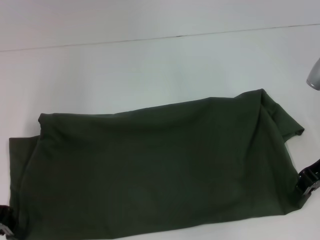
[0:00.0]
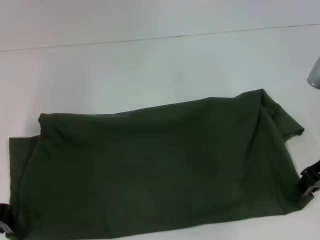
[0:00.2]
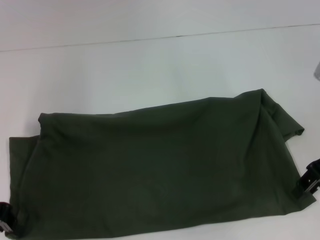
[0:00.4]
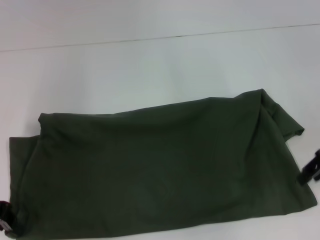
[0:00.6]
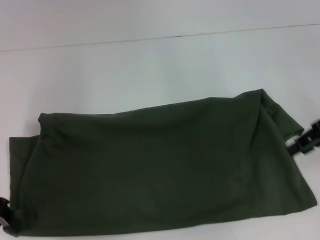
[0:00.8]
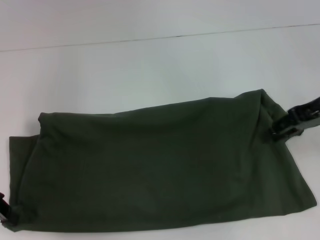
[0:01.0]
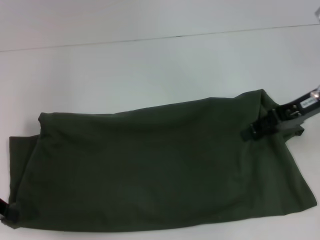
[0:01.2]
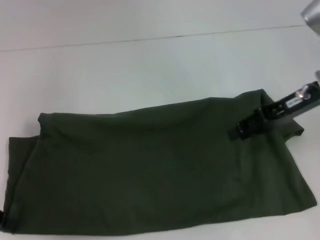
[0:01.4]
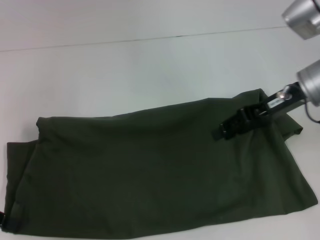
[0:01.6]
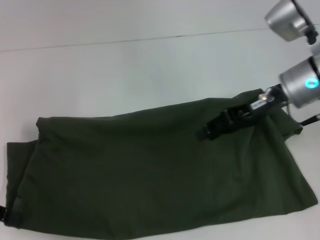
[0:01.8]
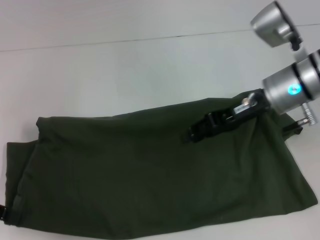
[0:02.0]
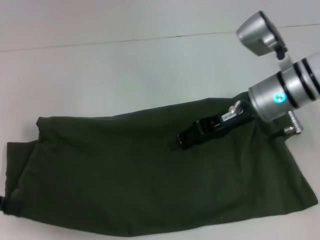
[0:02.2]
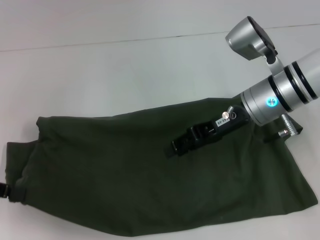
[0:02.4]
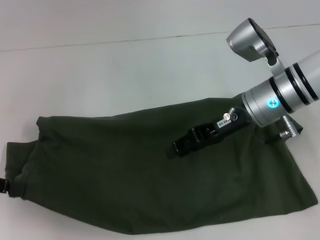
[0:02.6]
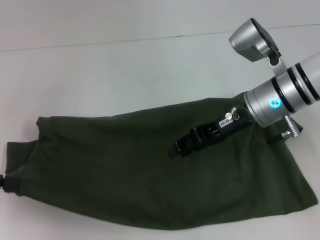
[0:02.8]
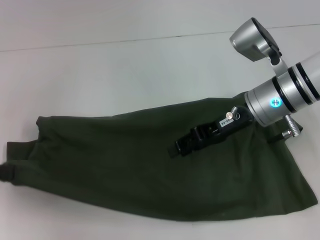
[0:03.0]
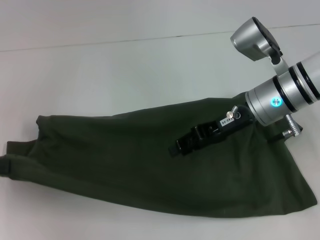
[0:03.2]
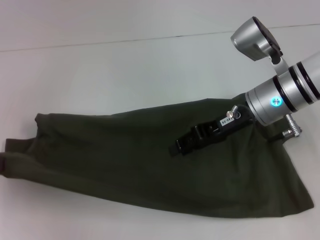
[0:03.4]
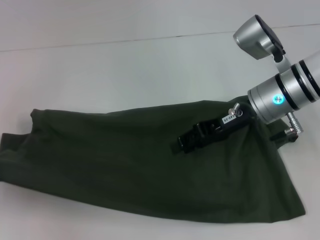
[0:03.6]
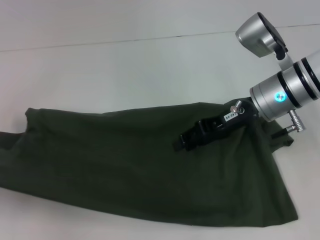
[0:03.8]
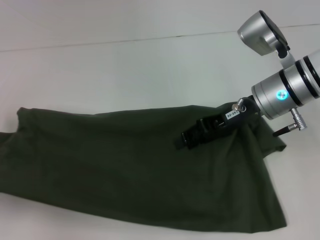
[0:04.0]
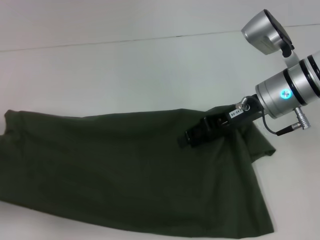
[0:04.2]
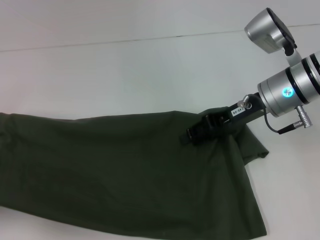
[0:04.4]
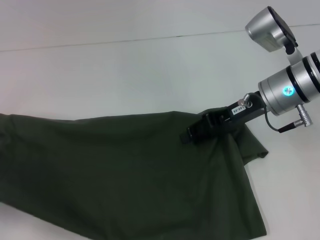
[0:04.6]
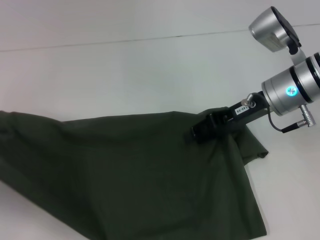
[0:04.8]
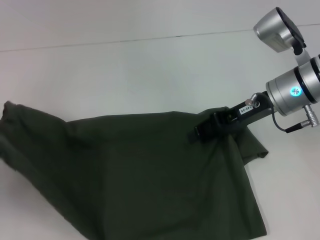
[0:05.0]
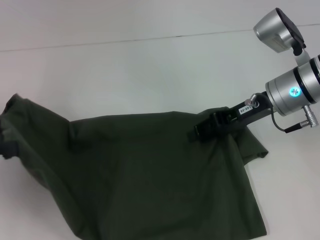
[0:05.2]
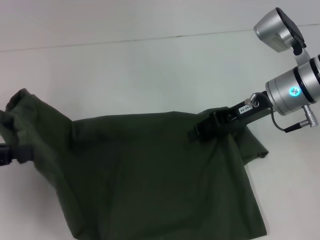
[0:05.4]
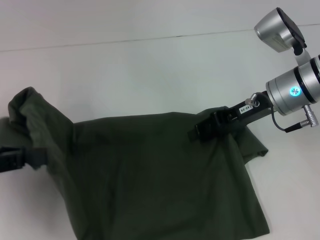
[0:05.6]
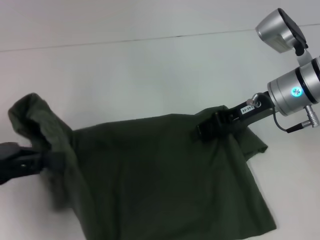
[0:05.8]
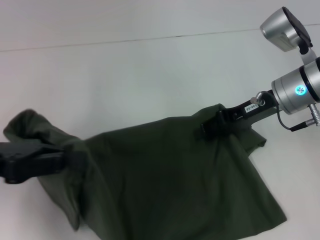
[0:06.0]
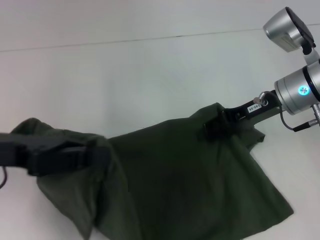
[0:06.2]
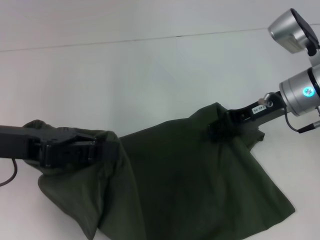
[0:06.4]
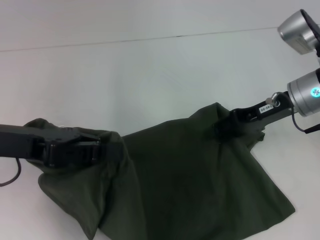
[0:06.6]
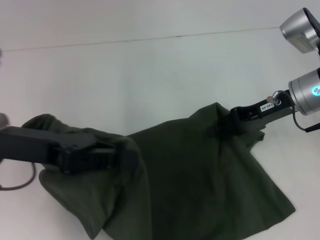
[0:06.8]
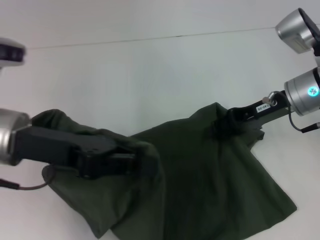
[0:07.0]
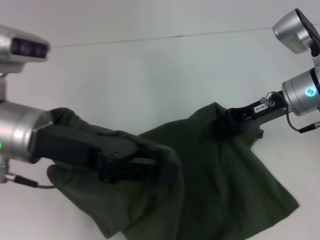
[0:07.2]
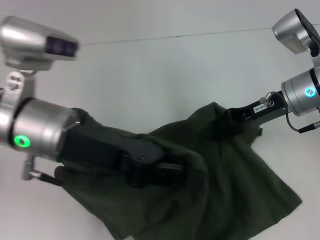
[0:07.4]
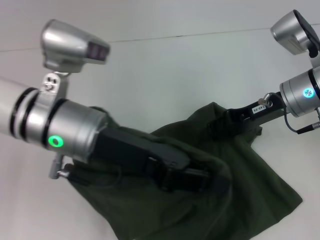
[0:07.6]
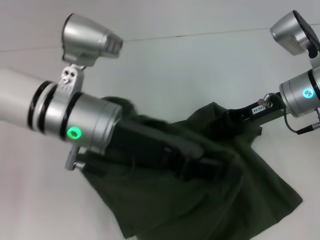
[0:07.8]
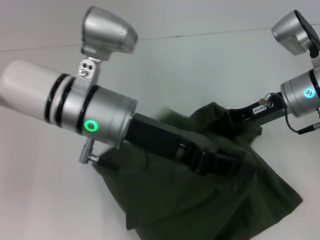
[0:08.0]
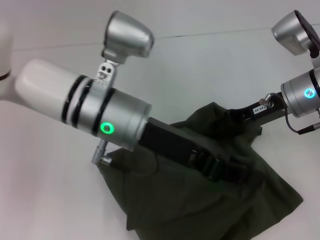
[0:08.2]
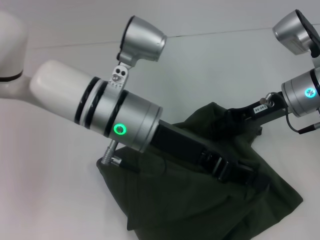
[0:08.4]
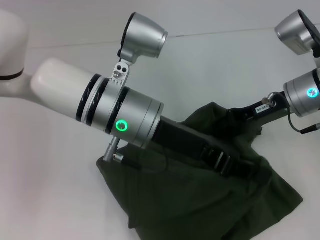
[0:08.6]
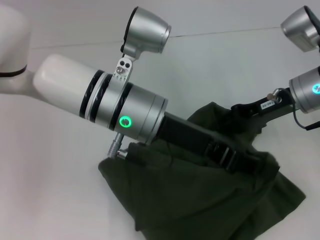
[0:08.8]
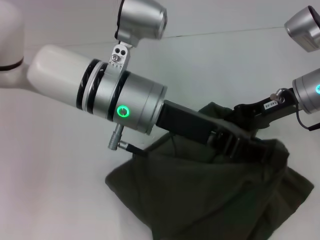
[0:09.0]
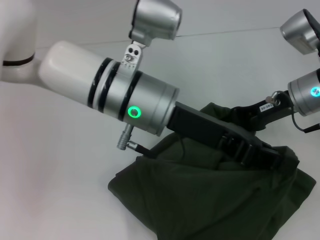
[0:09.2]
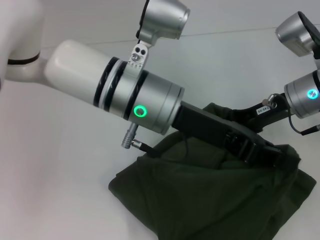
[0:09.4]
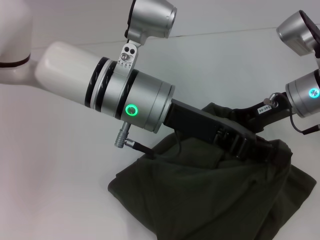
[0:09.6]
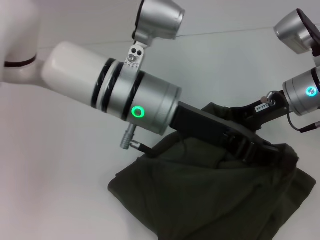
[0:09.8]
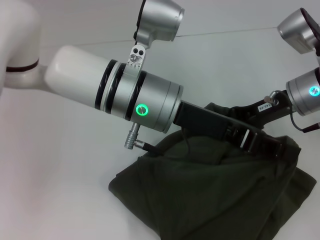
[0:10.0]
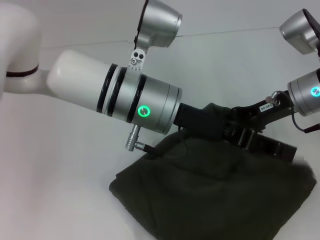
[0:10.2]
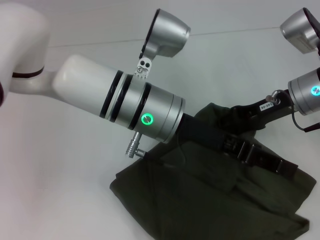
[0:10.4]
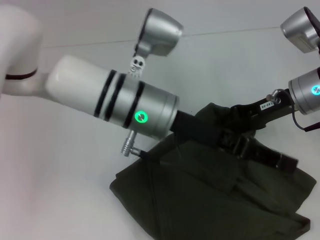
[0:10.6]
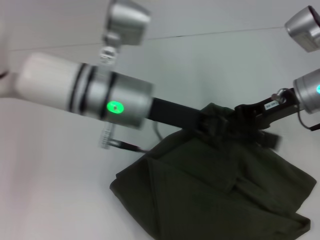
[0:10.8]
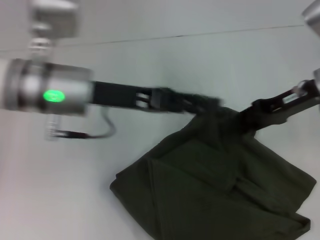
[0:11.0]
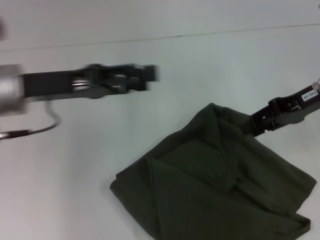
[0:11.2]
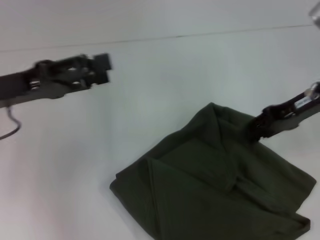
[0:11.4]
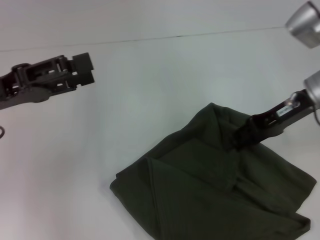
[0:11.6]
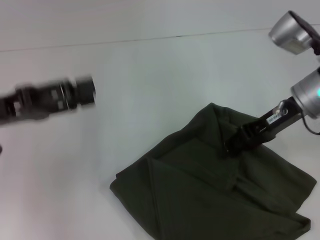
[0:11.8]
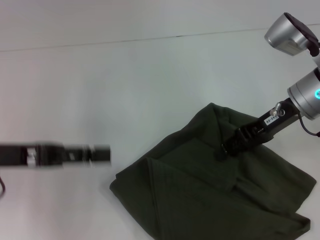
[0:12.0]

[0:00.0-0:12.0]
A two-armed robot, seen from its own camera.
Step, 0:00.0 to 0:11.0: Fold the clothes with your left hand.
0:00.0 to 0:01.6: The right gripper is displaced to the left by roughly 5 cm, and opens.
0:01.6 to 0:03.0: The right gripper travels to the left by roughly 5 cm.
0:03.0 to 0:04.4: The left gripper heads to the left and backward, covering some 10 cm.
0:04.4 to 0:06.0: The left gripper travels to the right and forward by some 15 cm.
0:06.0 to 0:07.6: The left gripper is displaced to the right by about 15 cm.
0:07.6 to 0:09.0: The left gripper heads to the right, covering roughly 5 cm.
0:09.0 to 0:10.4: The grippers stay close to where they were, moving slightly.
0:10.4 to 0:12.0: The left gripper travels to the left by roughly 25 cm, and opens up.

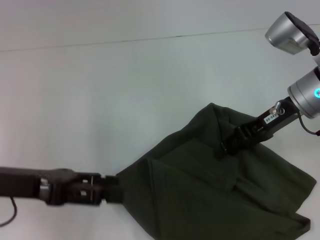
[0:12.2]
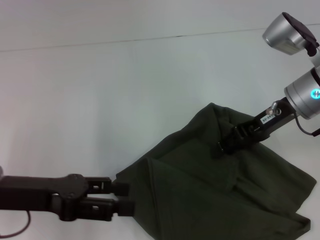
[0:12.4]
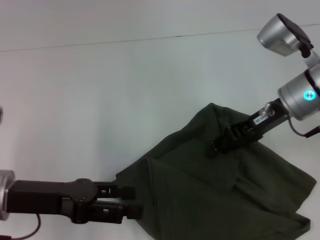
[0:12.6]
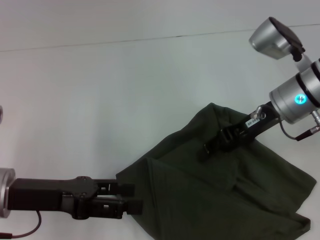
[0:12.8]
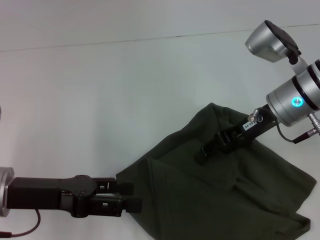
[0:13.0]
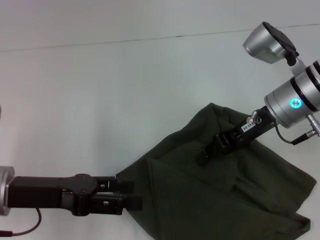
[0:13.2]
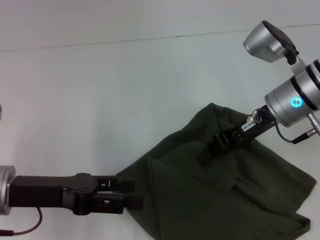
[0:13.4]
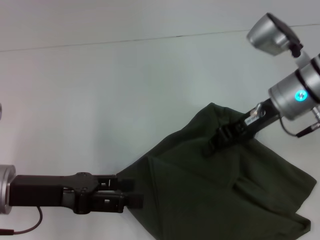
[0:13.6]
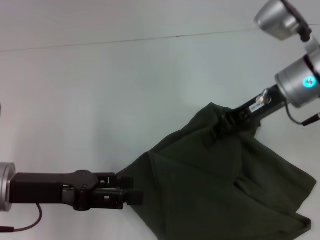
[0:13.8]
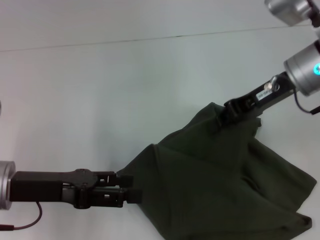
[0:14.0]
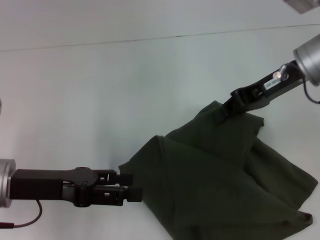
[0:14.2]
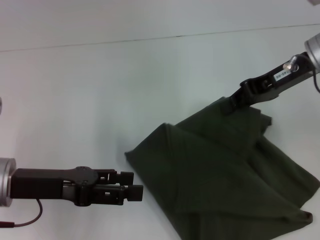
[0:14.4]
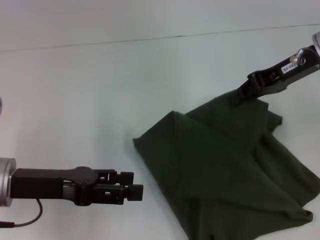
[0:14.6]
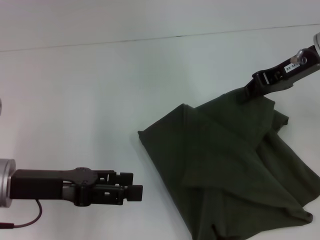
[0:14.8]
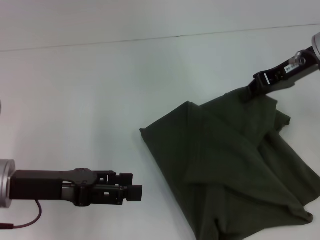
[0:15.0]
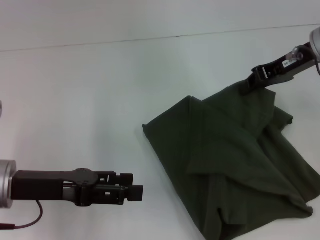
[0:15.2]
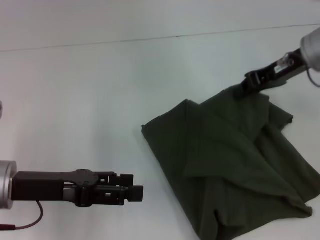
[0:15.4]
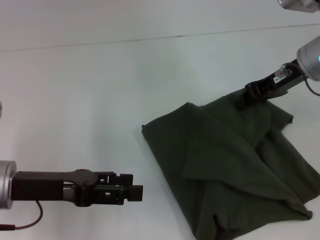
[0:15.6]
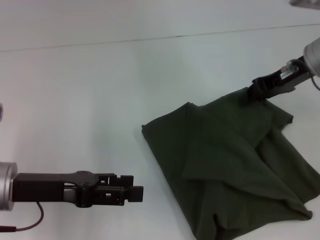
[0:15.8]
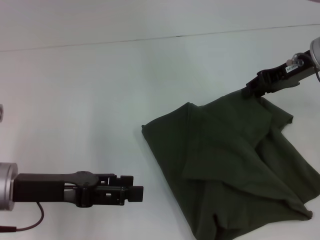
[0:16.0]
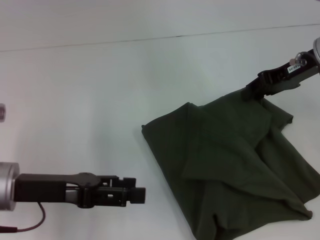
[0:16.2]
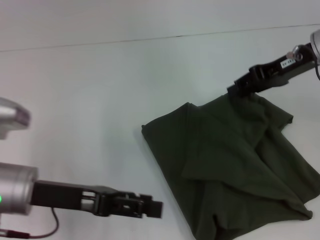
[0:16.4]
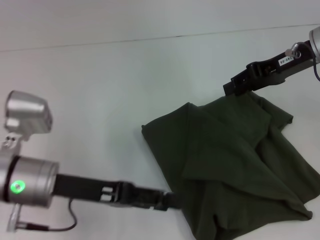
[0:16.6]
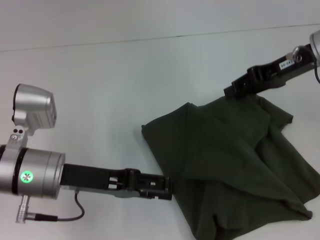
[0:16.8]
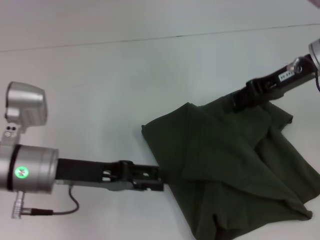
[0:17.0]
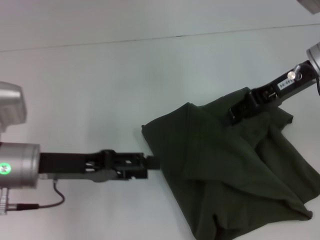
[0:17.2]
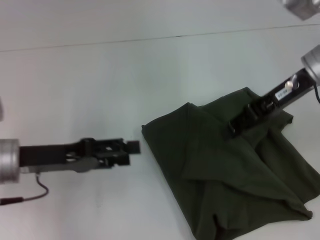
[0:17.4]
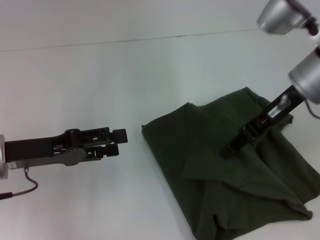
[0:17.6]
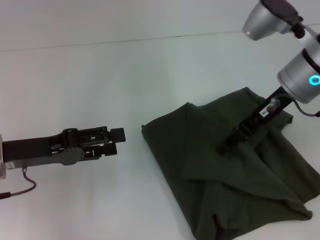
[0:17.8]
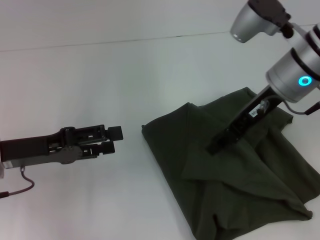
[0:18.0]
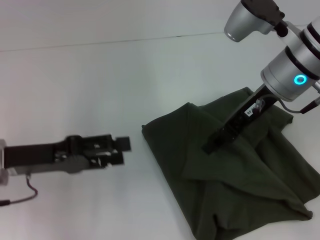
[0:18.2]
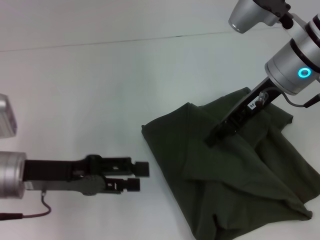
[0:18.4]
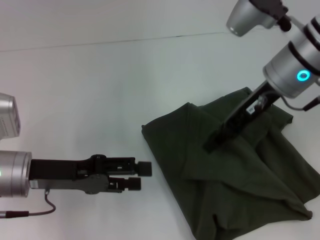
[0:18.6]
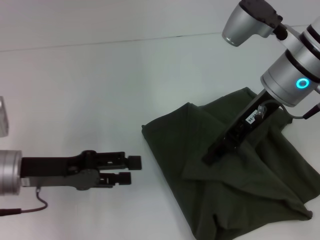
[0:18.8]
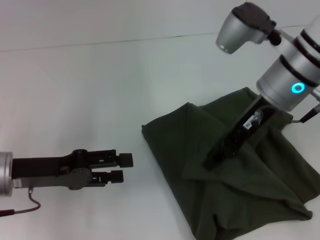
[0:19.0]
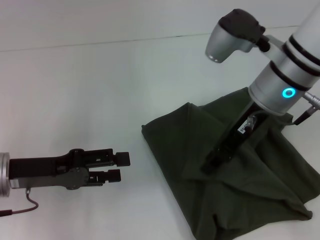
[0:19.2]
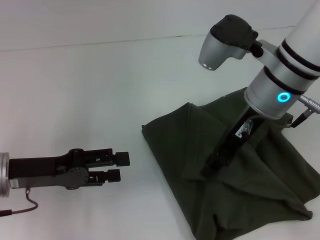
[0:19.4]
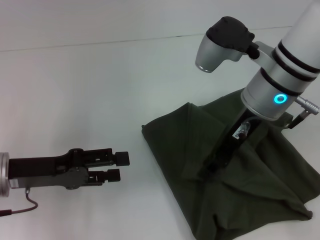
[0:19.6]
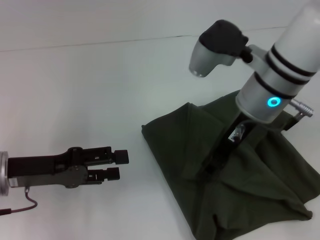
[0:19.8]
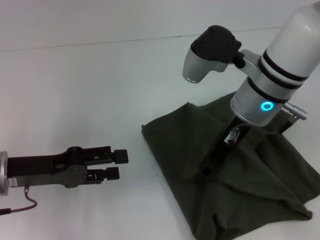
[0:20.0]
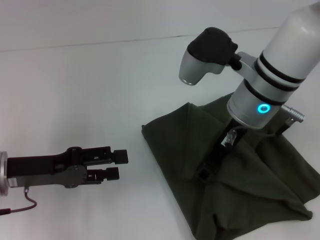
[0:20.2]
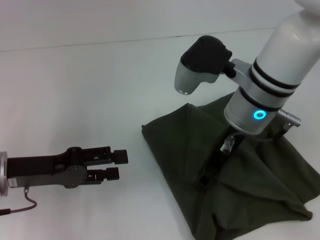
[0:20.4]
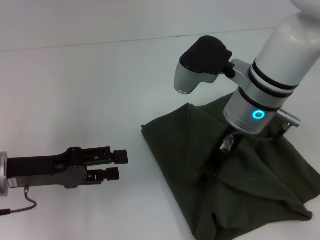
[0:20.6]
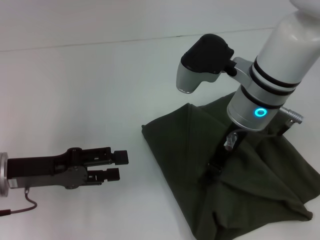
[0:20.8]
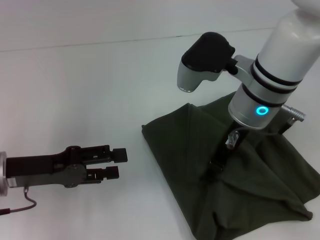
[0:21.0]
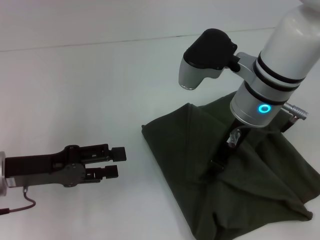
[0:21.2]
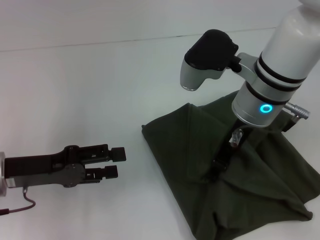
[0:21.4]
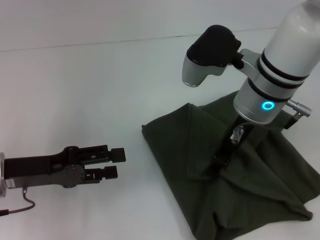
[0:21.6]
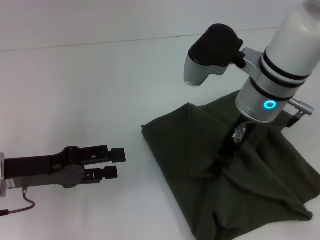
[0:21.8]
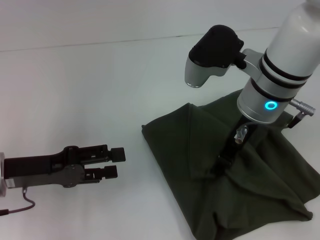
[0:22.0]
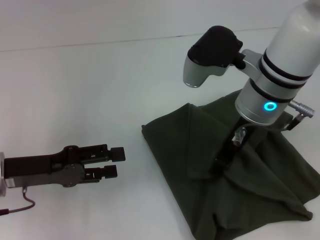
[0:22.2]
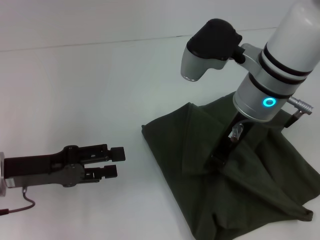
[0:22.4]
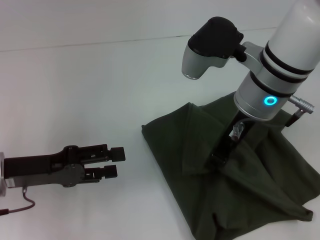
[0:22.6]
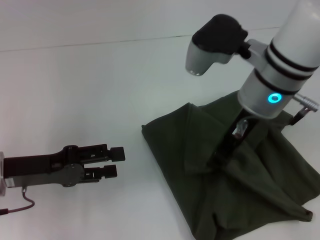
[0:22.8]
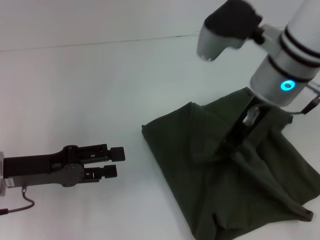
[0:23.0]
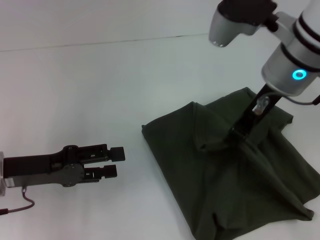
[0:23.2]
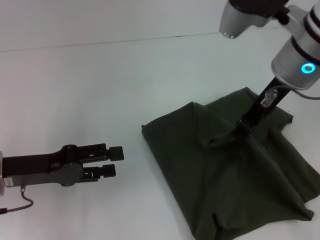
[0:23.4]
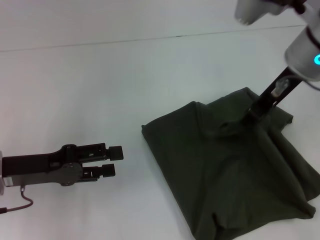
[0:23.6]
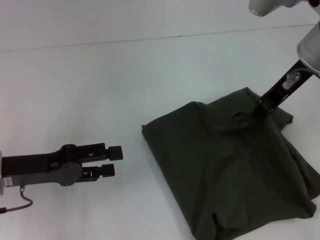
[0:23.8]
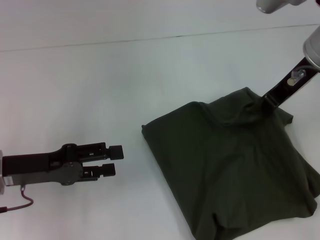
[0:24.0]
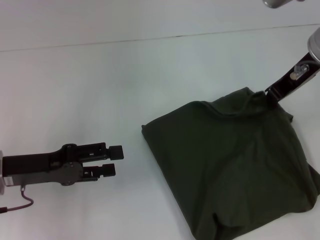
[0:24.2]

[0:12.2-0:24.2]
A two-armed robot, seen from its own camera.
0:12.2 to 0:13.8: The right gripper closes up.
0:13.8 to 0:15.2: The right gripper changes place by about 5 cm.
0:16.6 to 0:18.2: Both grippers move to the left, about 5 cm.
0:18.2 to 0:19.8: The grippers move only a little.
0:19.8 to 0:21.2: The grippers stay close to where they were, moving slightly.
0:21.2 to 0:22.6: The right gripper closes up.
0:22.6 to 0:24.2: The right gripper shifts some 10 cm to the right.
